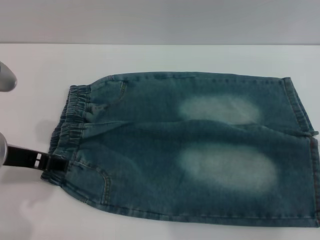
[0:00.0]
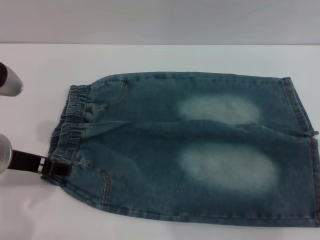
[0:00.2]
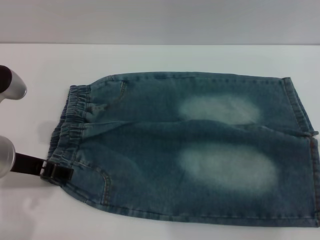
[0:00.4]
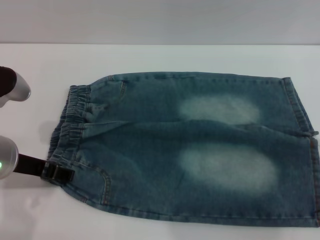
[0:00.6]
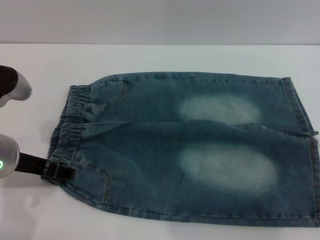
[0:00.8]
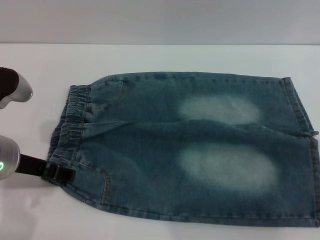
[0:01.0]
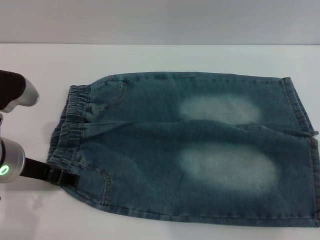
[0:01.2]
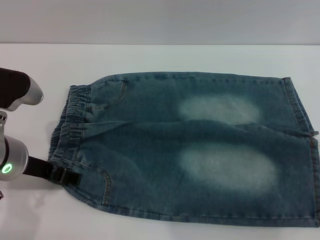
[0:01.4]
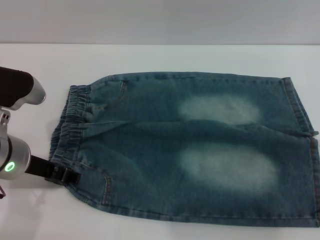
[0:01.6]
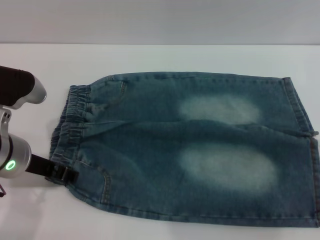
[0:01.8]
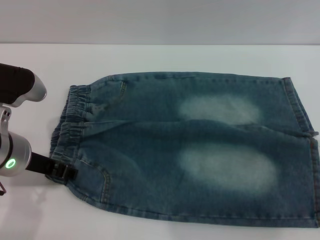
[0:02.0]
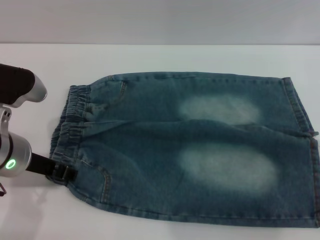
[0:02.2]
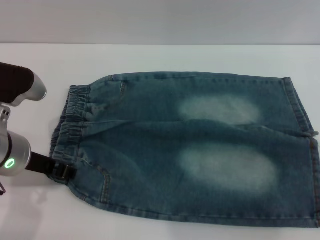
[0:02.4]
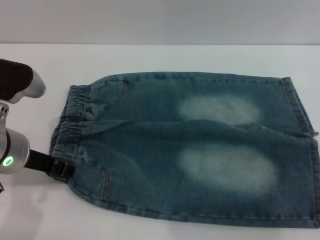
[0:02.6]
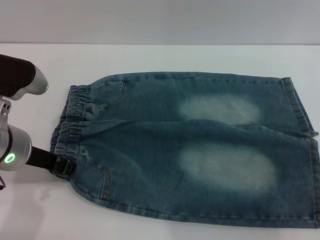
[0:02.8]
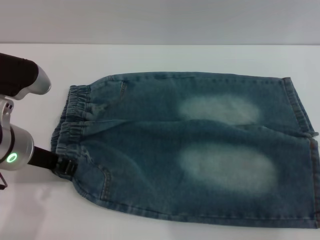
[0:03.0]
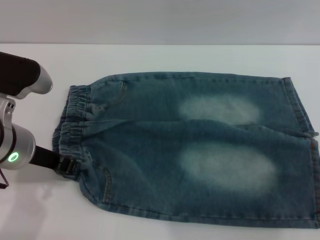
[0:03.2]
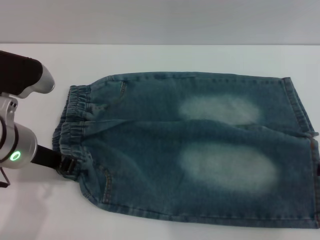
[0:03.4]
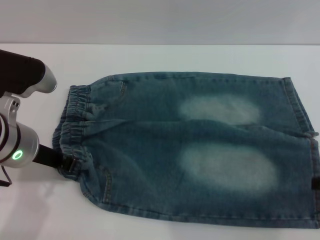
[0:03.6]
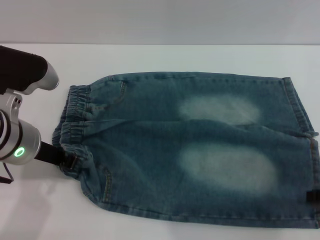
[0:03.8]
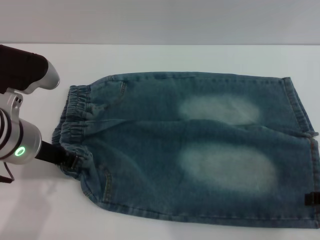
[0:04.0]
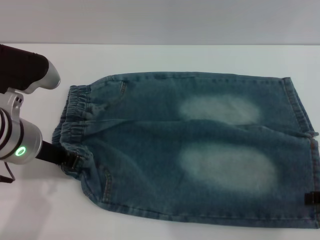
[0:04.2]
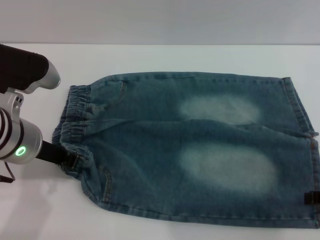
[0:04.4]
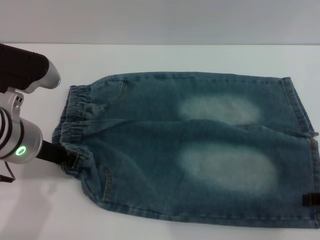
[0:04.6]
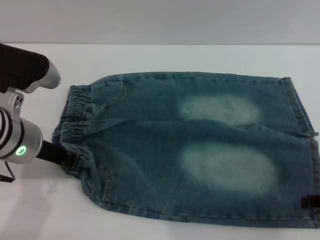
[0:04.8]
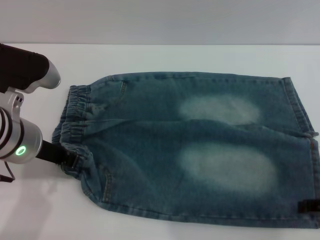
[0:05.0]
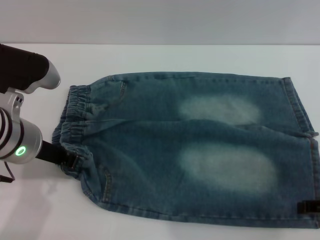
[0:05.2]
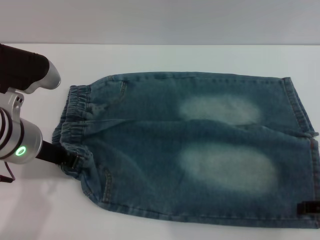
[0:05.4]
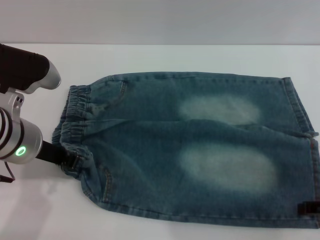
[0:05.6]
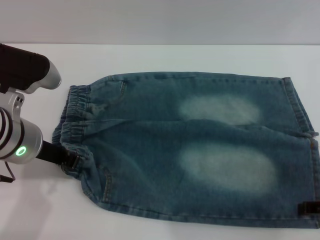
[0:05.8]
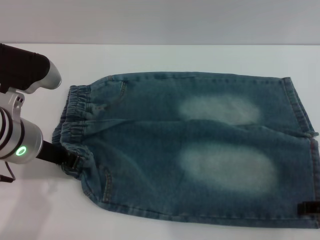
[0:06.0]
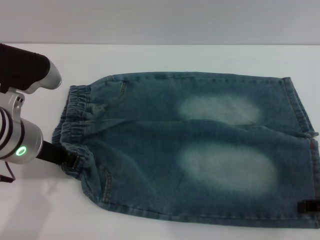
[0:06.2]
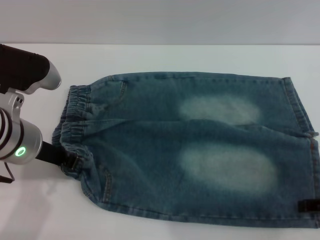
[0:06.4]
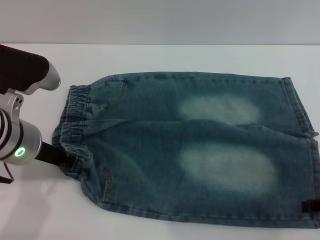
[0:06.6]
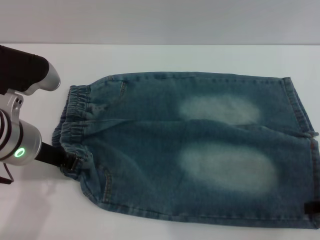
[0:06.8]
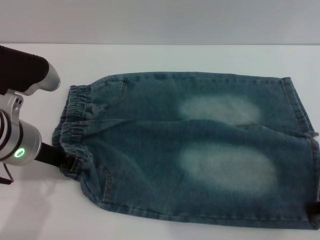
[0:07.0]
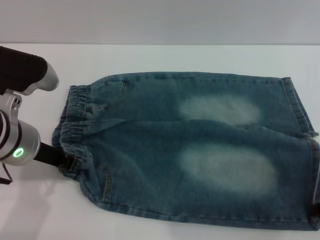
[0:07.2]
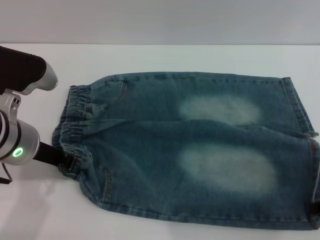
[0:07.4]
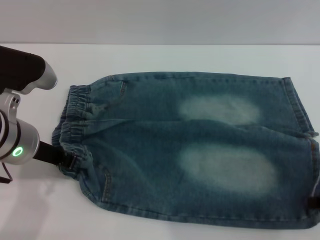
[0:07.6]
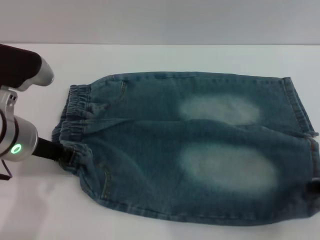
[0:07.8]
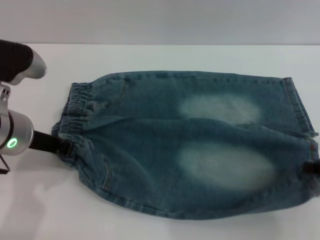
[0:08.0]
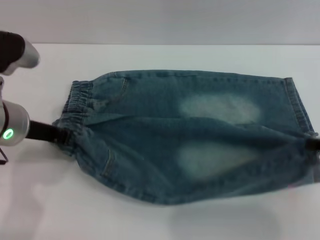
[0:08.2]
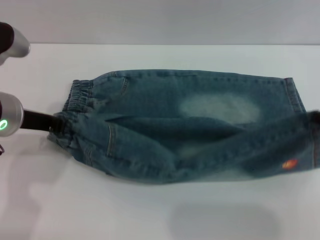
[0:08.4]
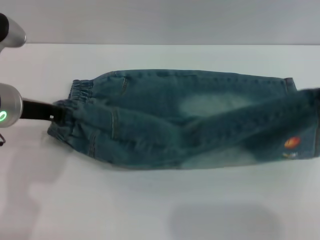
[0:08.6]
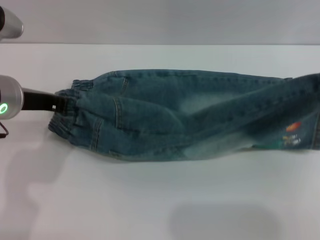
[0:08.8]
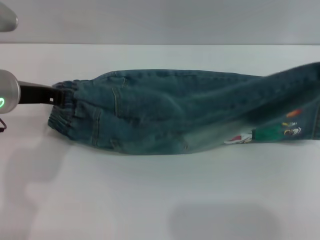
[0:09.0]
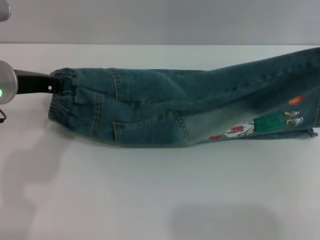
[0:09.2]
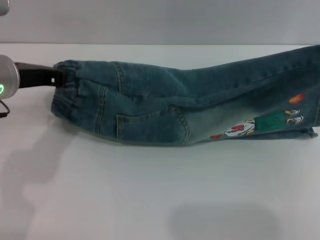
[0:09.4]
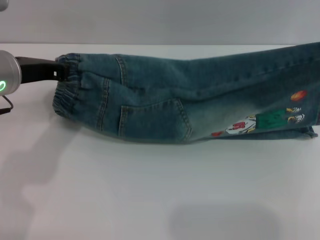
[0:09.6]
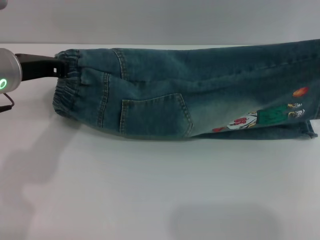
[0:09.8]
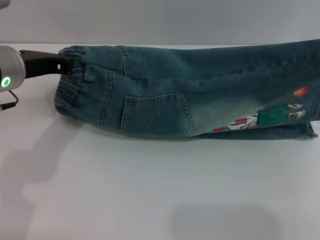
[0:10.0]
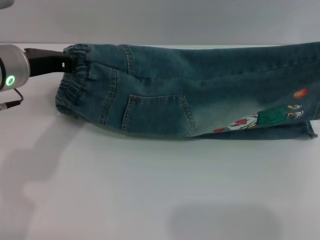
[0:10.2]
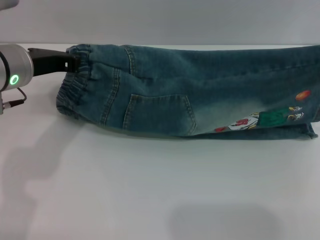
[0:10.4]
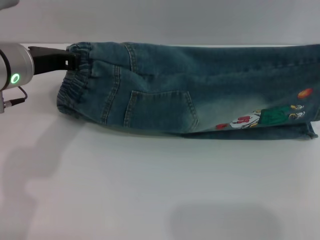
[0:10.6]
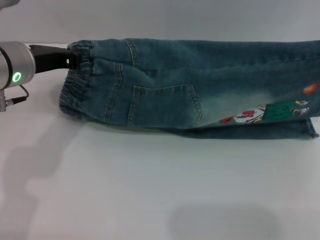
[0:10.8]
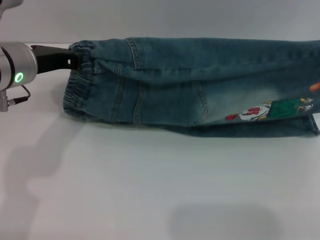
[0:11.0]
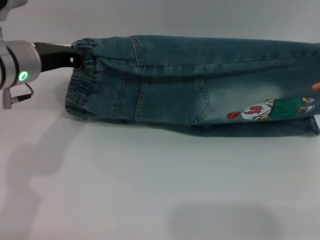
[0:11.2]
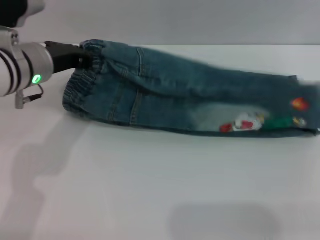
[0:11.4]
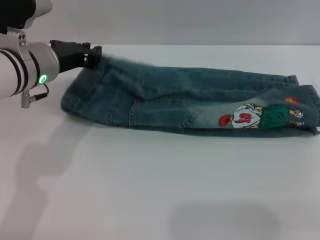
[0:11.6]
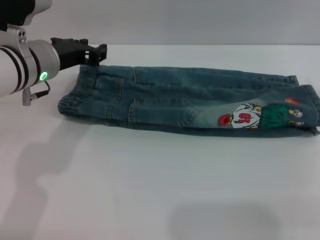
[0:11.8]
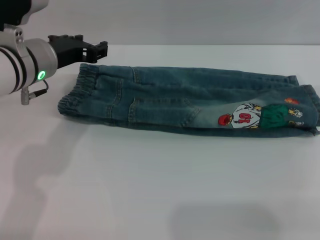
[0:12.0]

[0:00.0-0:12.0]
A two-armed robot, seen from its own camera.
0:00.0 to 0:01.6: There are only small adjustments of the grippers.
0:01.6 to 0:03.0: The left gripper closes its fingers.
0:03.0 to 0:04.4: The left gripper closes its fingers.
0:04.4 to 0:06.0: There are only small adjustments of the grippers.
0:07.6 to 0:09.0: The right gripper is displaced upward by about 10 cm.
0:10.4 to 0:12.0: The left gripper opens. Meanwhile the right gripper opens its fingers.

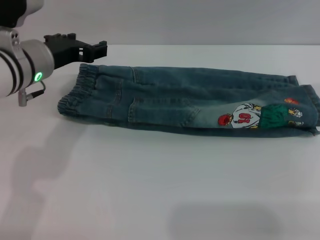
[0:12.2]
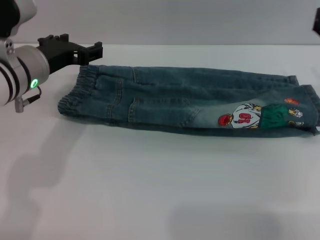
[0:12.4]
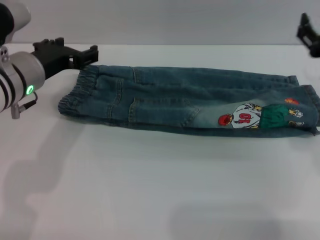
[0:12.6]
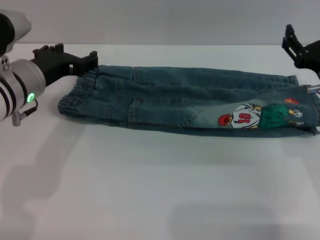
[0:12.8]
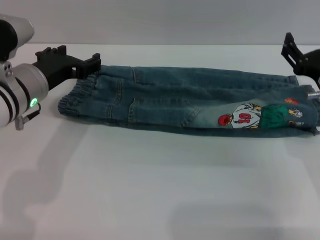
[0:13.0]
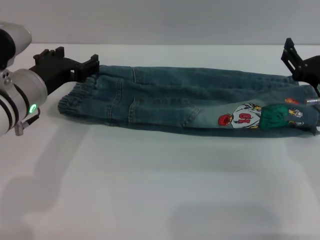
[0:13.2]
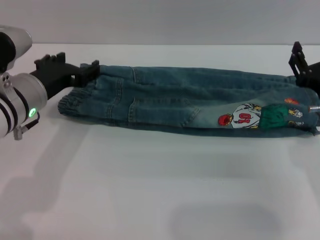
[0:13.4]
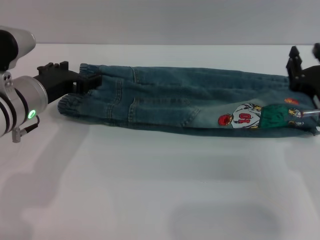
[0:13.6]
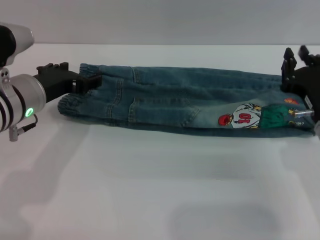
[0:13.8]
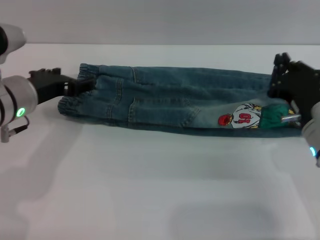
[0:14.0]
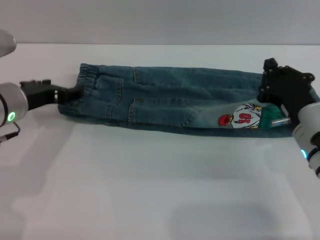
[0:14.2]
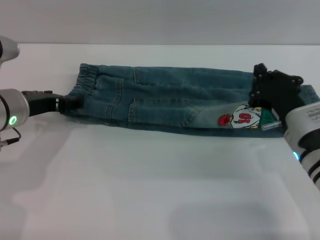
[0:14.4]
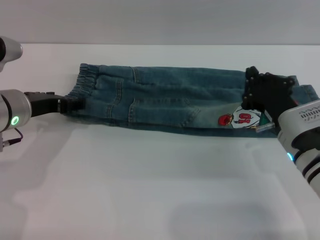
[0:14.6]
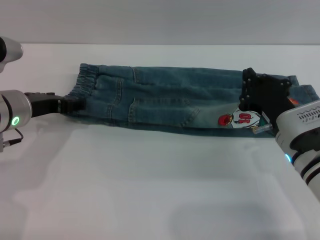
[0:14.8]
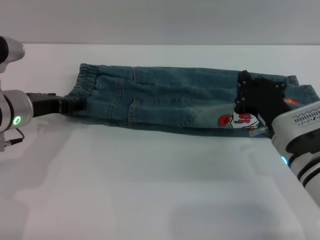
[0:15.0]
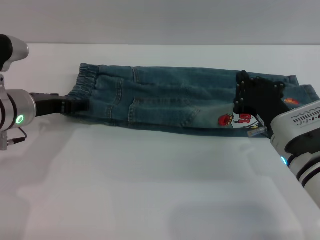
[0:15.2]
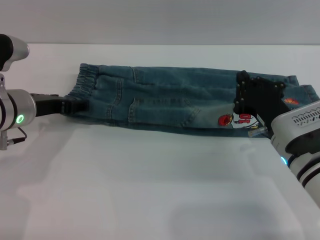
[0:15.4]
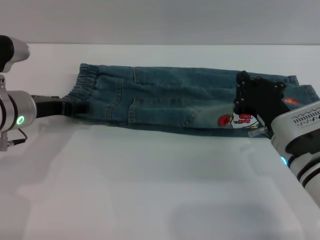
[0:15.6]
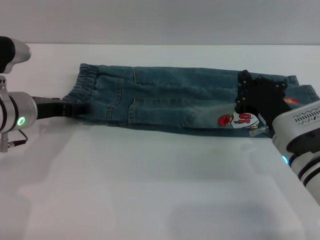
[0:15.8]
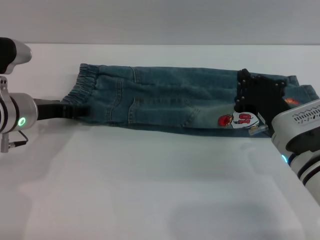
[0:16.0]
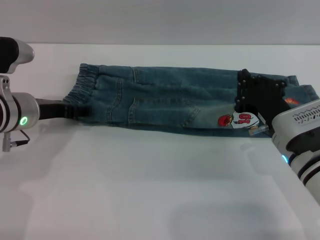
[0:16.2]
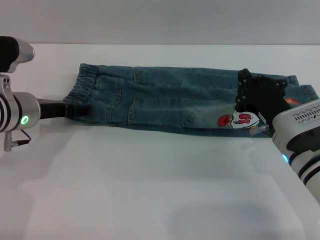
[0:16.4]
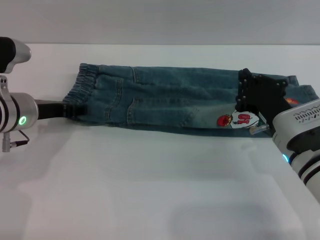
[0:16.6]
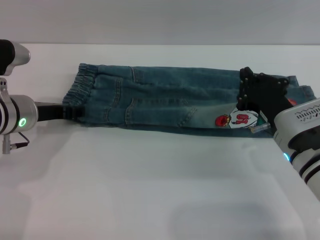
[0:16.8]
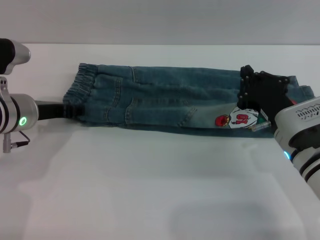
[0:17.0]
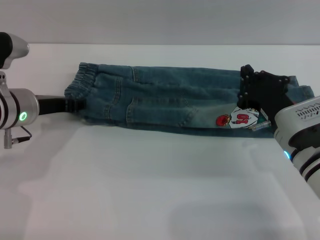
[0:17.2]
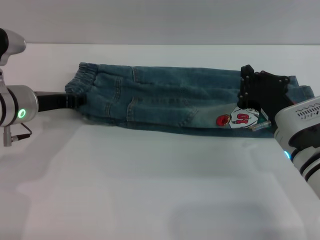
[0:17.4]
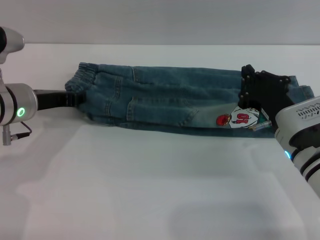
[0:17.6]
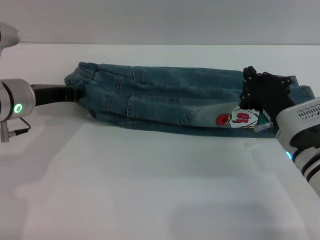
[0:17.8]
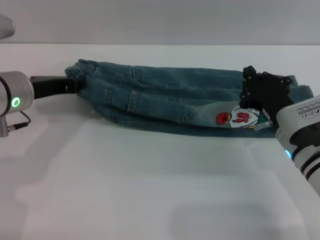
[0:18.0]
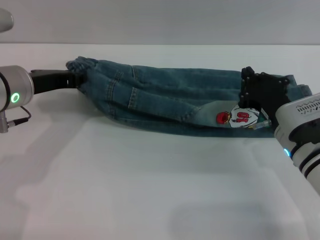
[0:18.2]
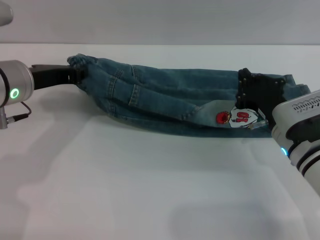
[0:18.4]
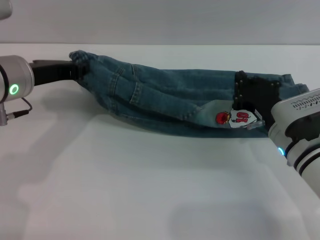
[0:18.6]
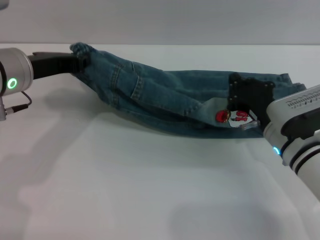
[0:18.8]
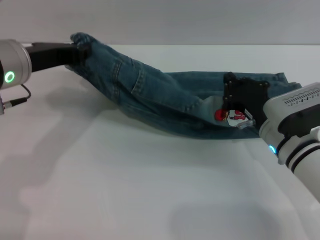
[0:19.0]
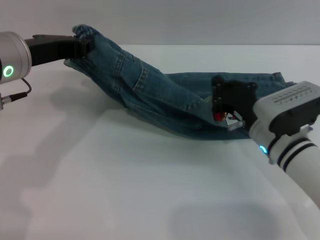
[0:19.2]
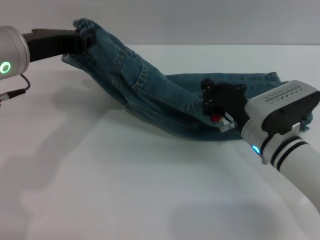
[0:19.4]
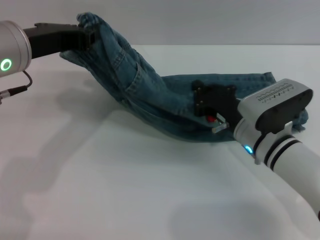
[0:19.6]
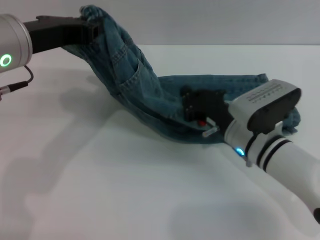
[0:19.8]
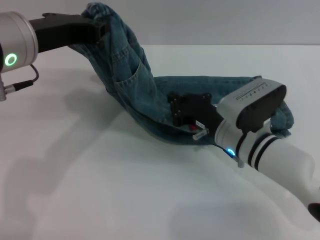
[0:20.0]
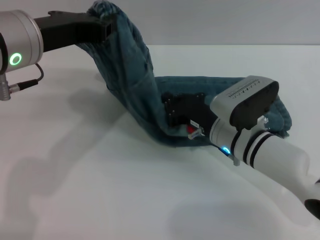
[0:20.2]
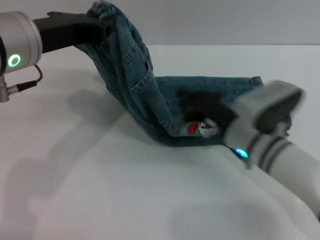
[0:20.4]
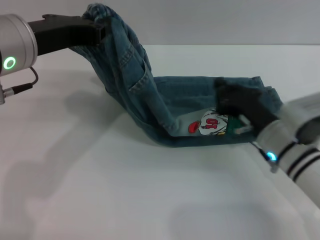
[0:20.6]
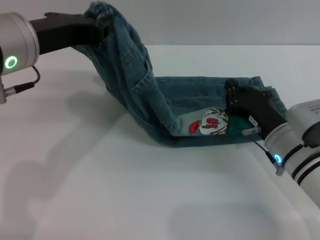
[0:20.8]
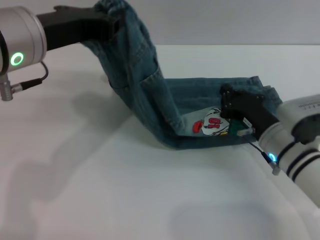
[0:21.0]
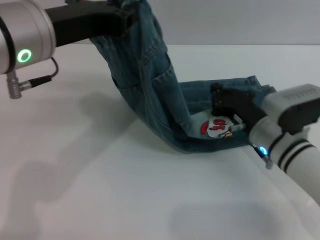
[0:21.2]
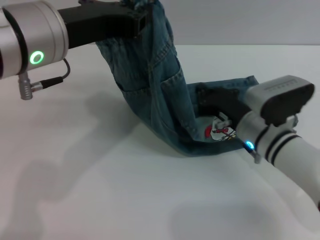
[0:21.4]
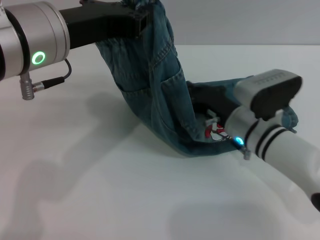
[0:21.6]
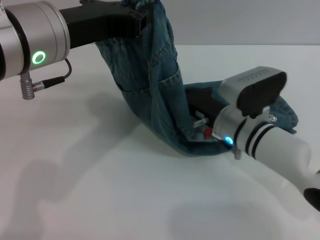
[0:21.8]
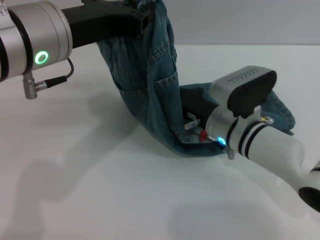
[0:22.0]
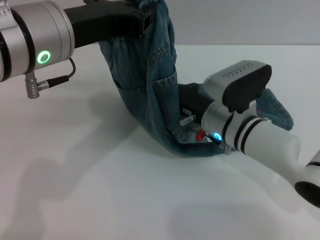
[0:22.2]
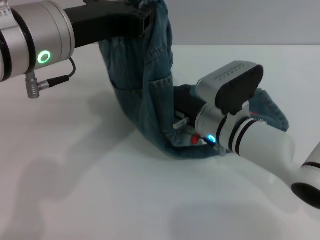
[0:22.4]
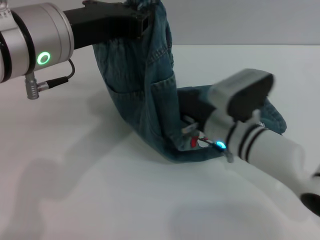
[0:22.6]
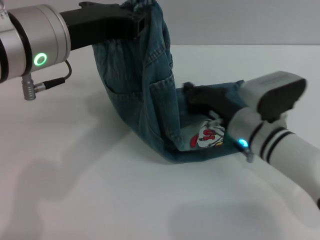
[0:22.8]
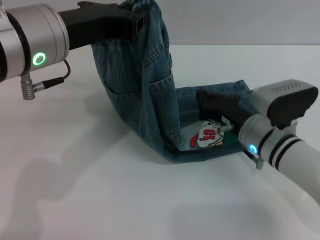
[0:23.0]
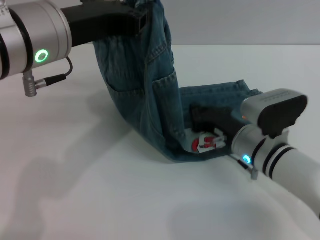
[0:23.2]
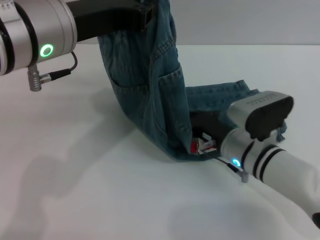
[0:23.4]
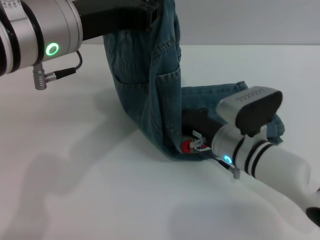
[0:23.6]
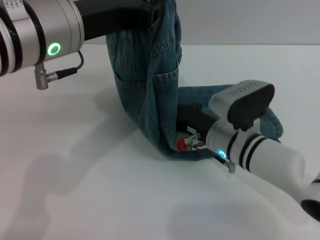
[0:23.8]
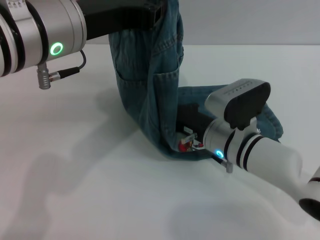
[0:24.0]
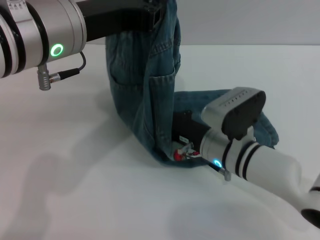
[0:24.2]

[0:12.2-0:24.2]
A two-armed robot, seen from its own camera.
Step, 0:12.2 to 0:14.6: Fold the bottom of the pants upward with both grippers.
0:12.2 to 0:13.8: The right gripper moves downward and to the left, roughly 10 cm, and closes its fingers.
0:13.8 to 0:15.2: The right gripper closes.
0:15.2 to 0:16.6: Both grippers stay about where they are.
0:16.6 to 0:18.2: The left gripper ends up roughly 5 cm from where it was, and closes its fingers.
0:18.2 to 0:19.8: The left gripper is displaced upward by approximately 10 cm. Meanwhile the right gripper is displaced to the left by about 5 cm.
0:21.2 to 0:22.6: The right gripper travels to the left by roughly 5 cm.
